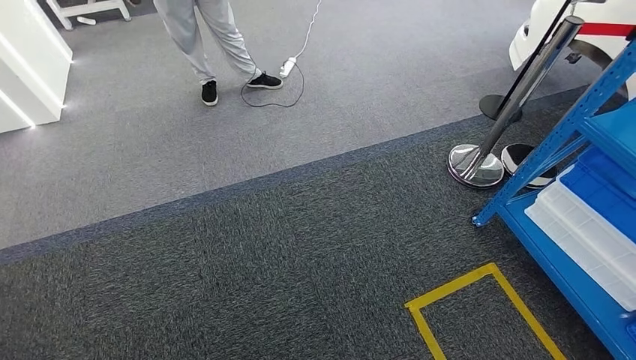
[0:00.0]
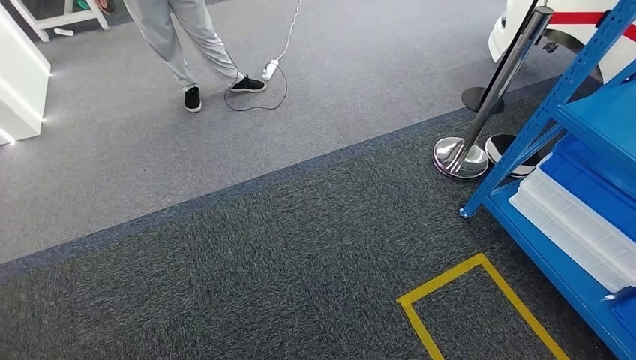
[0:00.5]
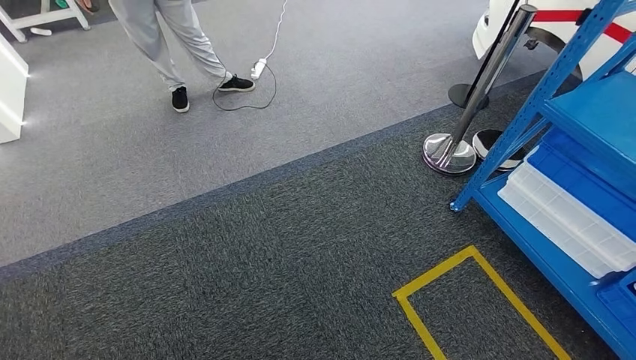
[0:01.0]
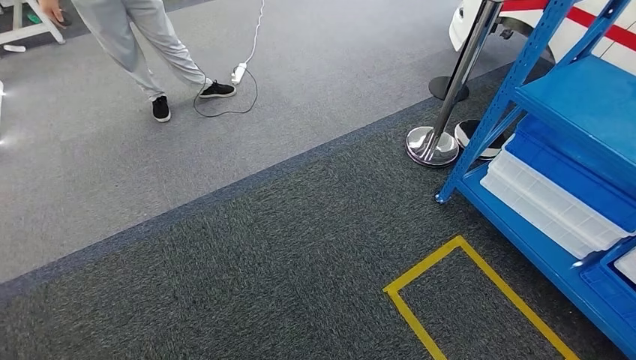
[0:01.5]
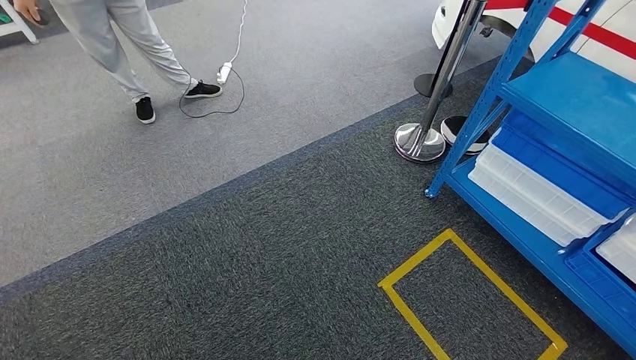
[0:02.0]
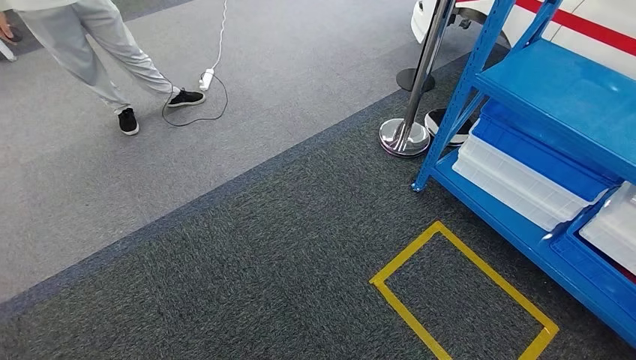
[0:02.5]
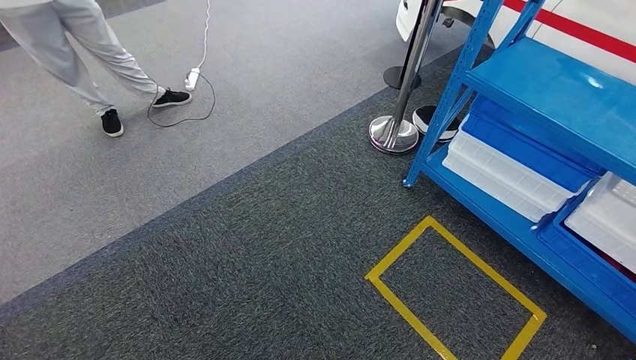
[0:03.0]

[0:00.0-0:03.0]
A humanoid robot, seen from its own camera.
Step, 0:00.0 to 0:03.0: Move to the initial position of the shelf.
